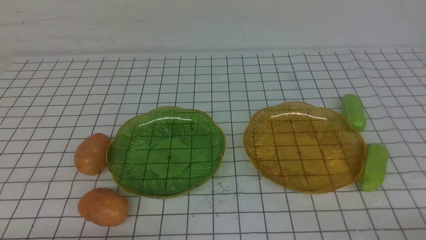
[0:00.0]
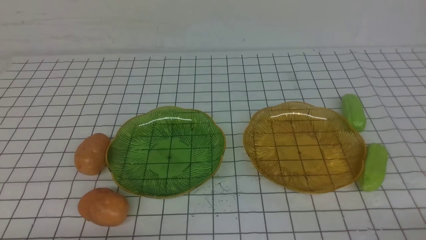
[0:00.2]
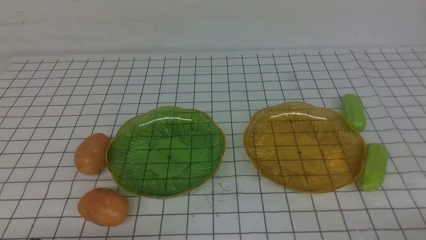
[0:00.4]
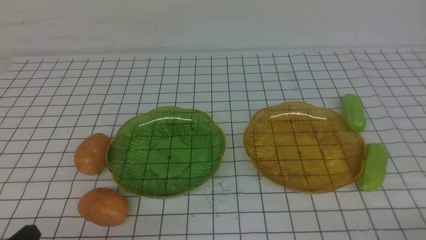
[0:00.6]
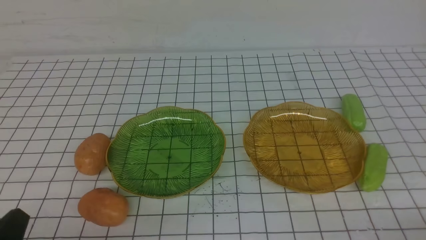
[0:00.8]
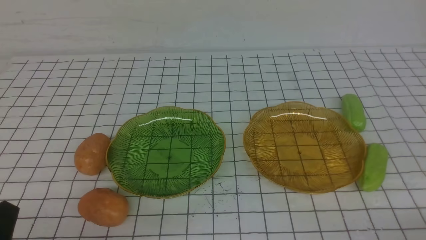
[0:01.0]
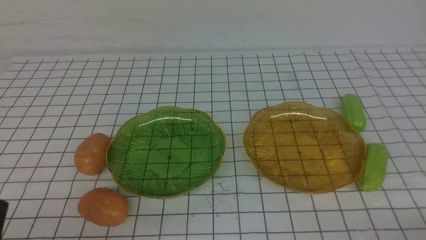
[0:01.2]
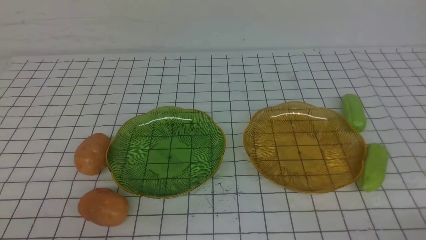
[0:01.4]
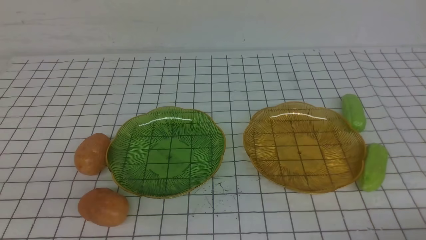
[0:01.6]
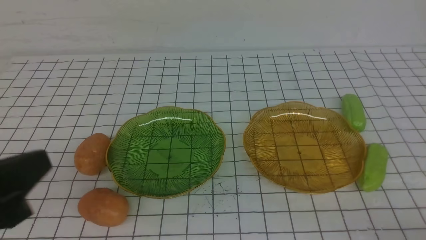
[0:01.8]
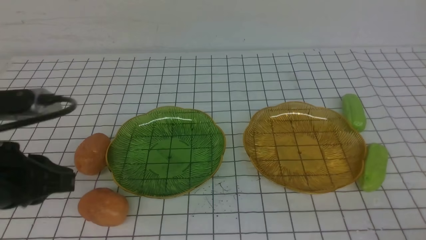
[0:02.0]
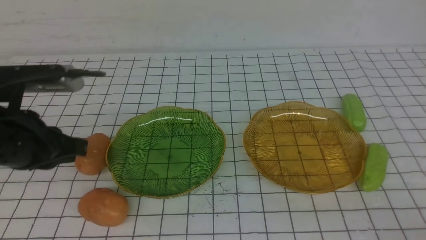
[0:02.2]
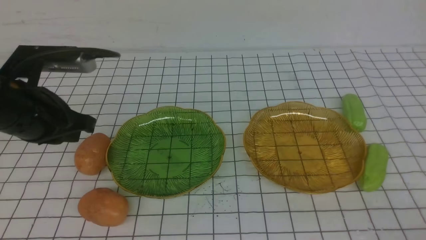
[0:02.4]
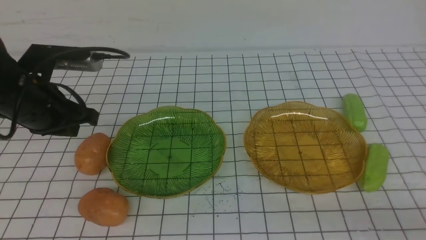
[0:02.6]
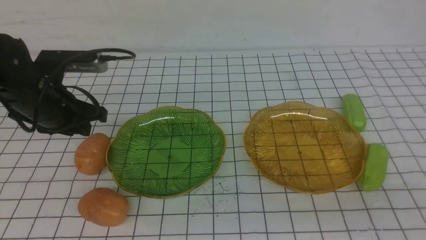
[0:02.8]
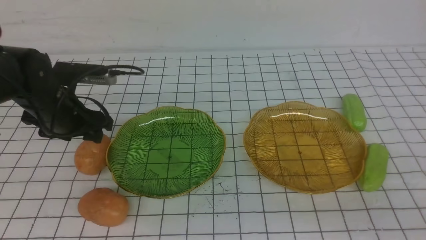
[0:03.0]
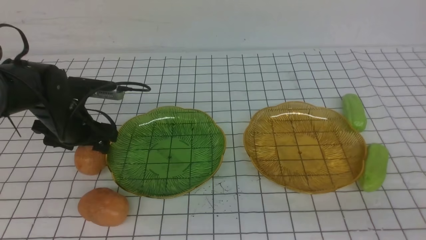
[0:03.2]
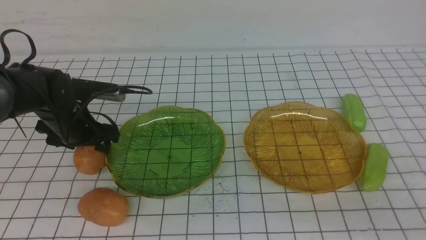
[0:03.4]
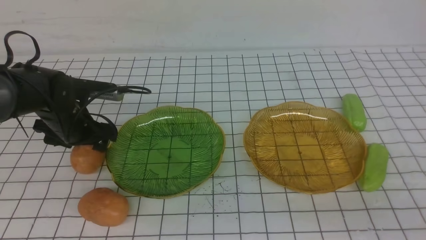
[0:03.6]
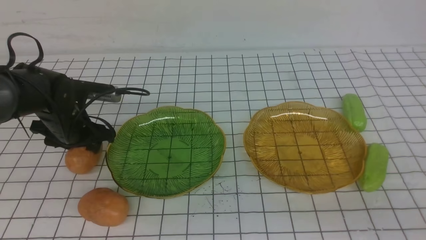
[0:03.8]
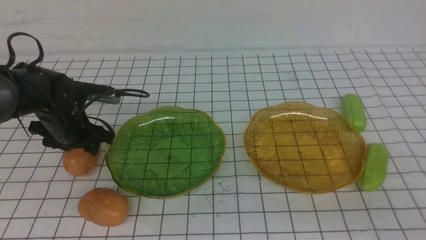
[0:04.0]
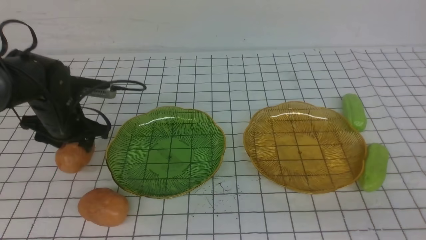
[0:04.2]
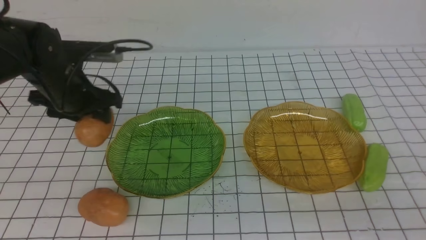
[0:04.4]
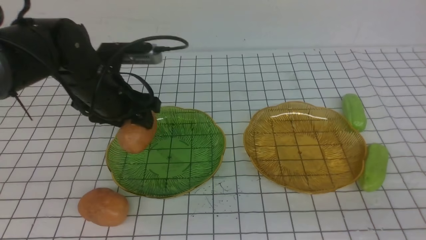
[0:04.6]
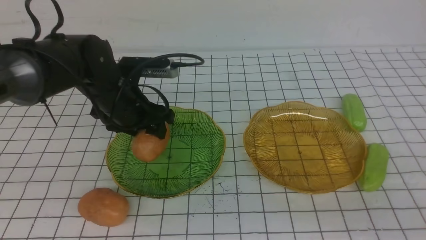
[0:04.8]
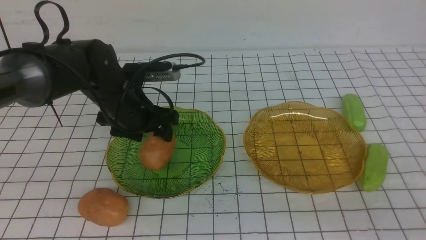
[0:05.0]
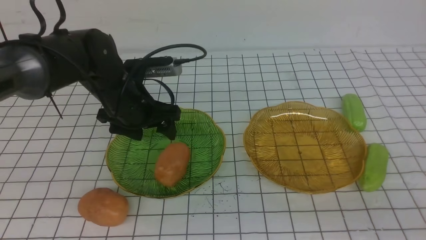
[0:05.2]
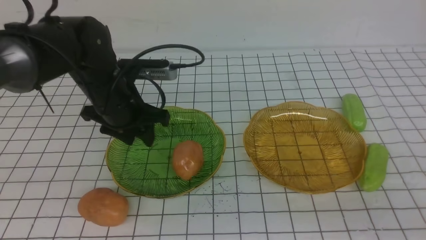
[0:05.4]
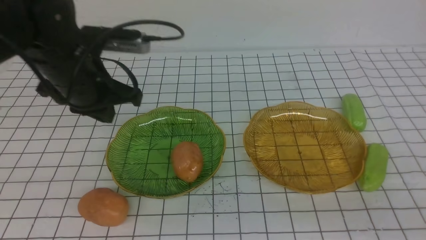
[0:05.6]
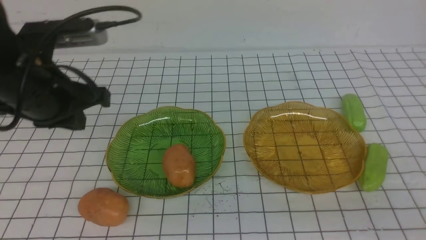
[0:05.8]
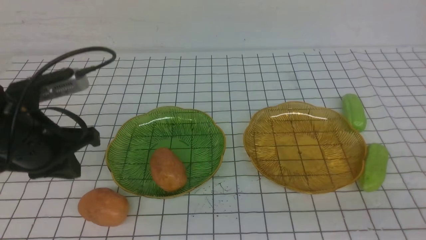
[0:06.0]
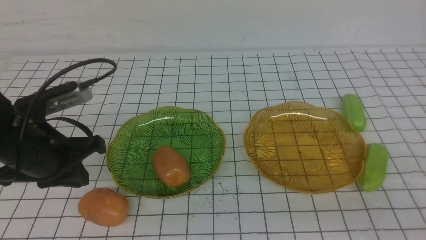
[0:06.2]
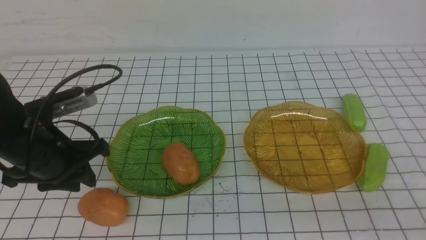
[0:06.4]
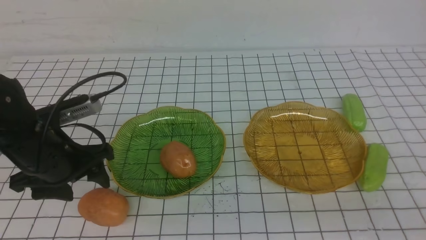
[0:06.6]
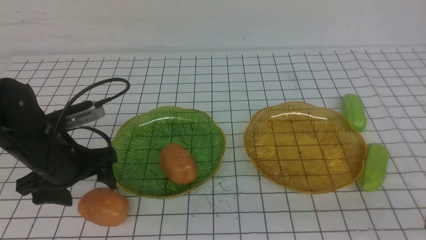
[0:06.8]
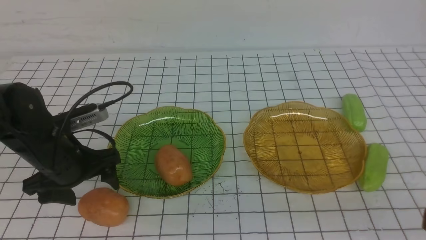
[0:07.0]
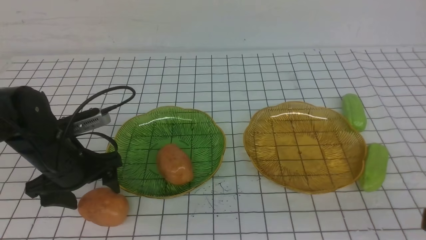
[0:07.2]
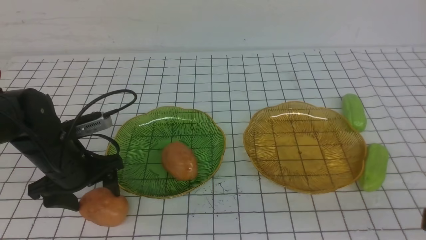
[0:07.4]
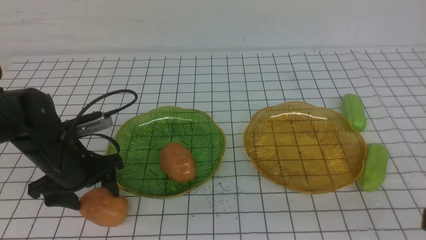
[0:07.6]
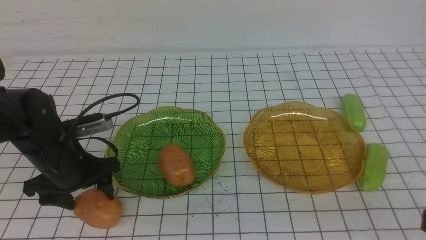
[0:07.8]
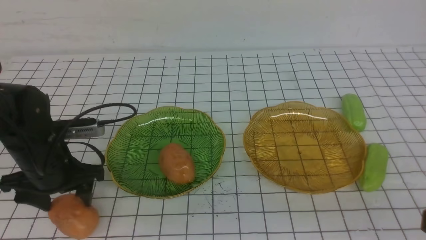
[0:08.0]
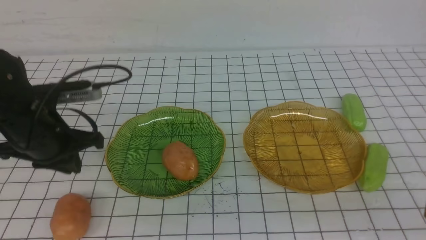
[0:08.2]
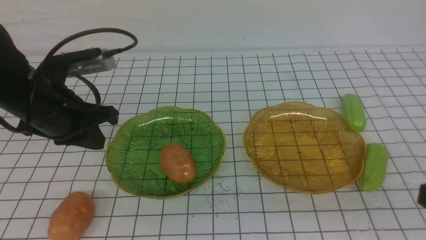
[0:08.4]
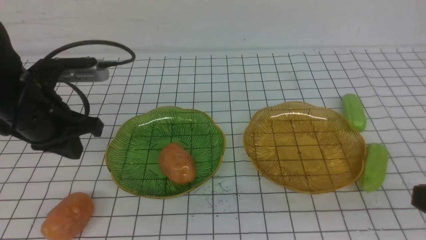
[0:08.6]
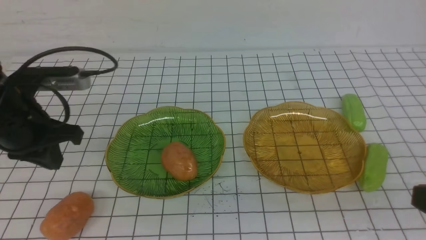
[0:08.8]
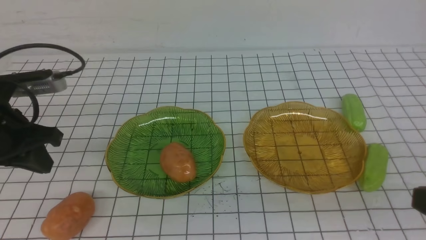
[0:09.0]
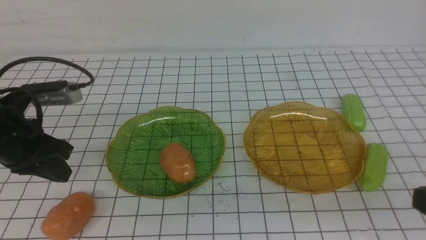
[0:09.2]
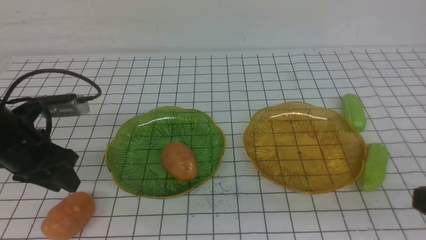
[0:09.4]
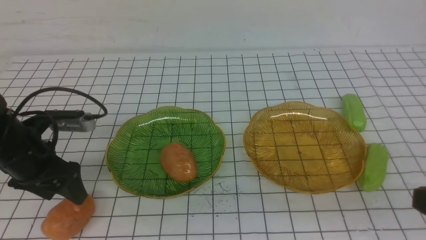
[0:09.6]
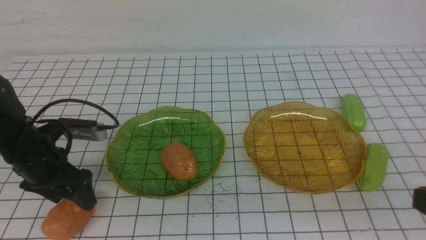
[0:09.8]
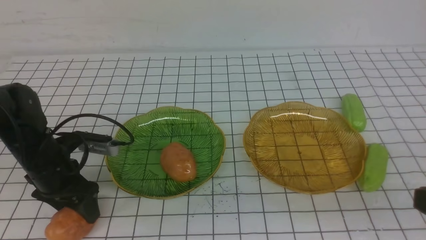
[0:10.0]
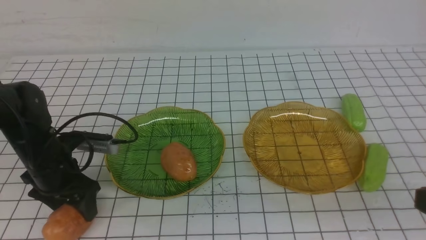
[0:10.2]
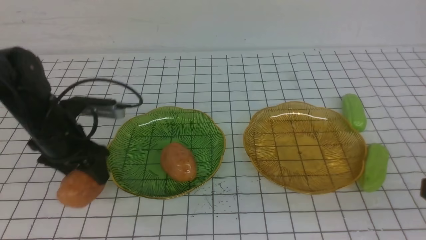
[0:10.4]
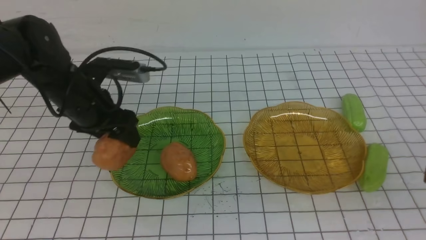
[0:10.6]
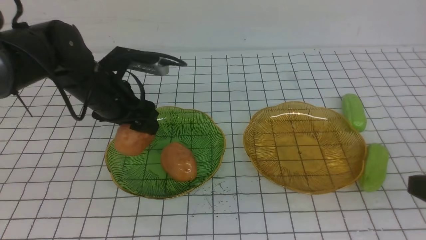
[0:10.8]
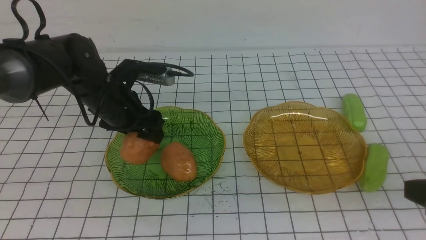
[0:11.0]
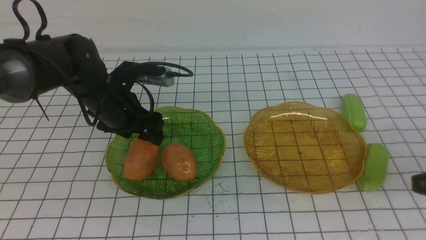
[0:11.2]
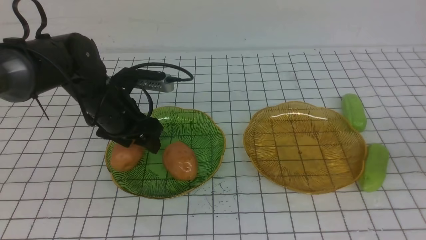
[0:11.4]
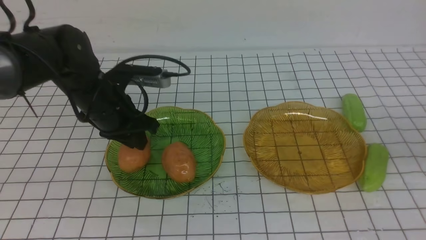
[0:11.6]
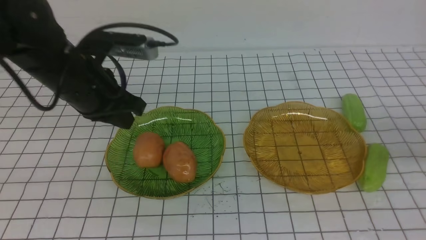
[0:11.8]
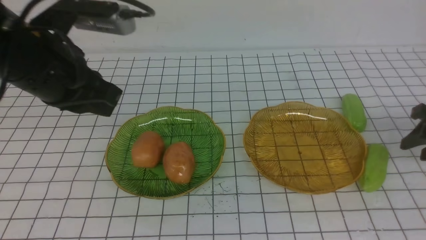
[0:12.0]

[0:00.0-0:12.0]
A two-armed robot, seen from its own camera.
Step, 0:00.0 to 0:11.2: Grab a potato with your left arm and put it on the left plate.
0:01.6 to 0:03.0: The right gripper travels upward by about 15 cm; the left gripper heads forward, covering roughly 30 cm, and opens up.
0:04.4 to 0:06.0: The left gripper moves backward and upward, roughly 15 cm, and closes its fingers.
0:06.0 to 0:07.6: The left gripper heads downward, covering about 10 cm, and opens its fingers.
0:07.6 to 0:09.0: The left gripper goes roughly 10 cm upward, and closes up.
0:09.0 to 0:10.4: The left gripper is displaced downward by about 10 cm, and opens its fingers.
0:10.4 to 0:12.0: The left gripper heads upward and to the right, covering some 15 cm, and closes its fingers. Meanwhile the right gripper goes roughly 25 cm forward and to the right, and opens.

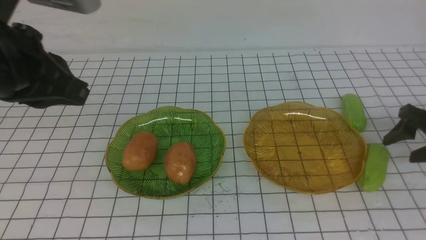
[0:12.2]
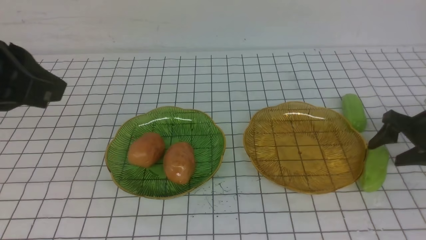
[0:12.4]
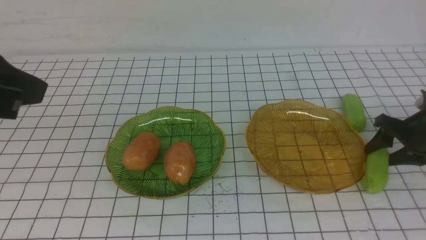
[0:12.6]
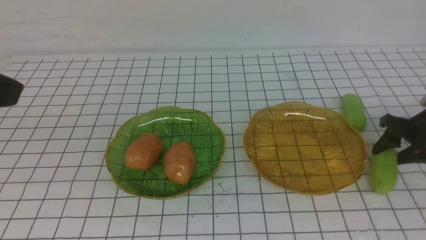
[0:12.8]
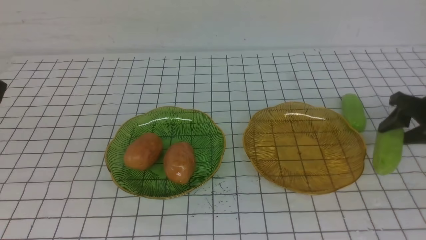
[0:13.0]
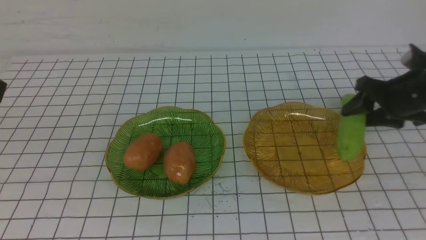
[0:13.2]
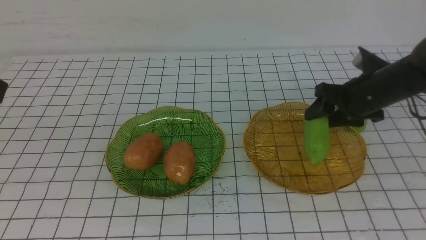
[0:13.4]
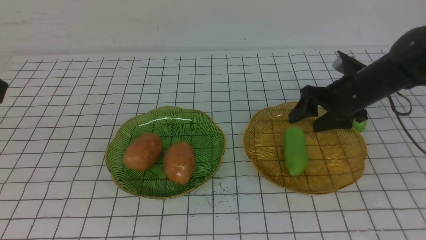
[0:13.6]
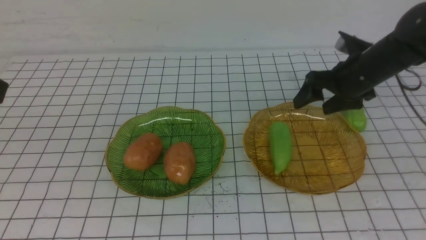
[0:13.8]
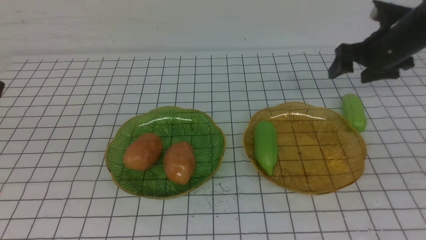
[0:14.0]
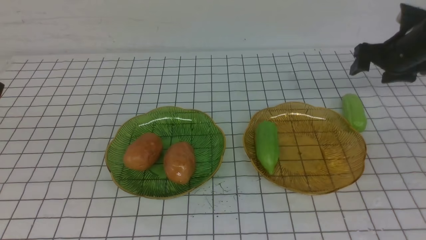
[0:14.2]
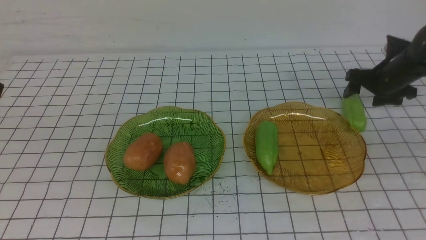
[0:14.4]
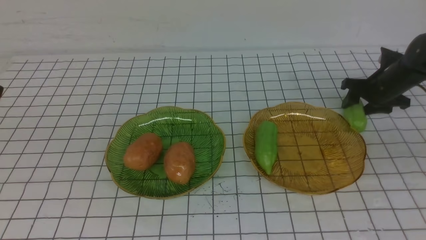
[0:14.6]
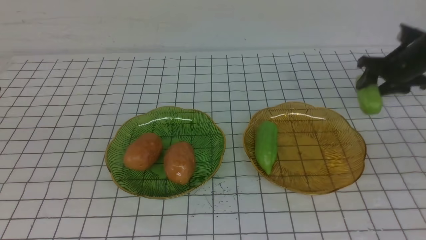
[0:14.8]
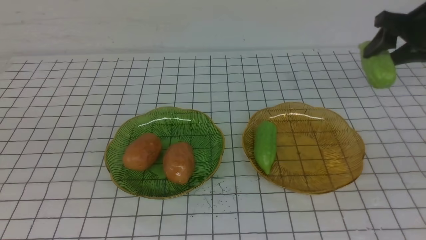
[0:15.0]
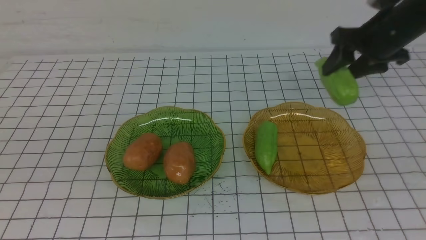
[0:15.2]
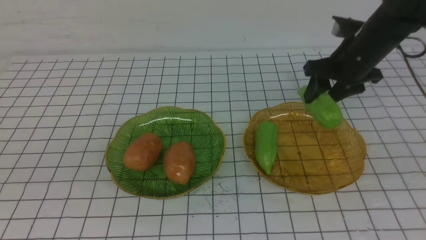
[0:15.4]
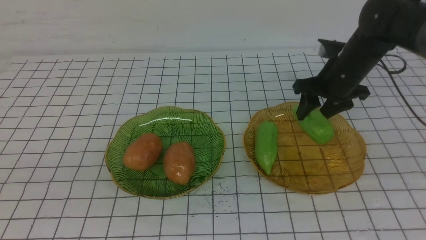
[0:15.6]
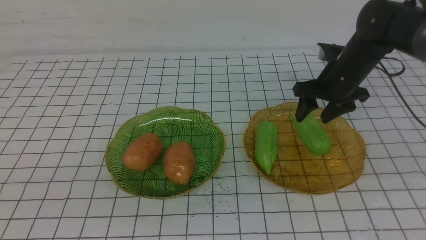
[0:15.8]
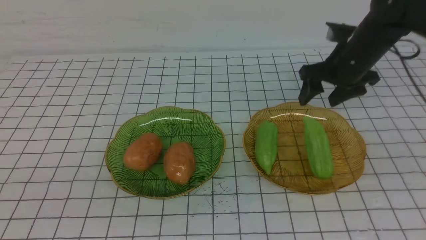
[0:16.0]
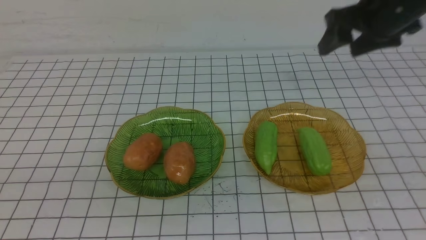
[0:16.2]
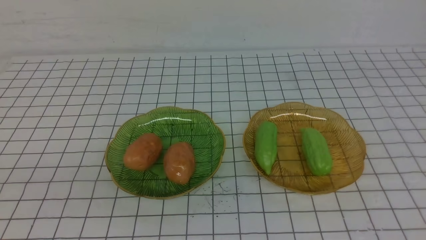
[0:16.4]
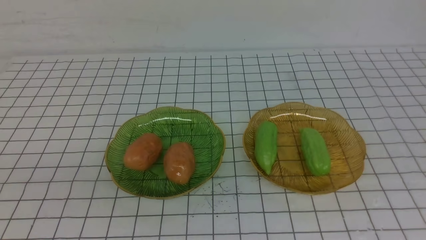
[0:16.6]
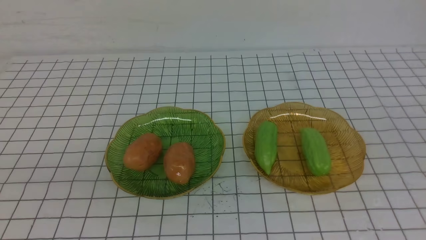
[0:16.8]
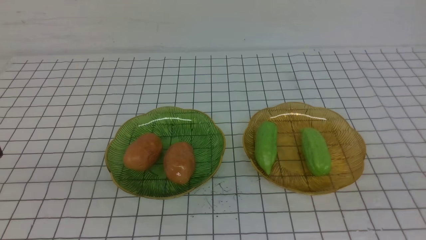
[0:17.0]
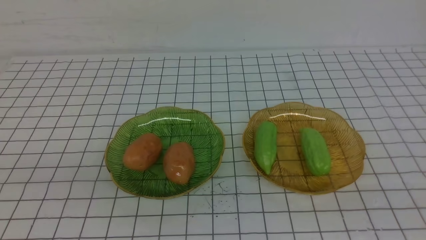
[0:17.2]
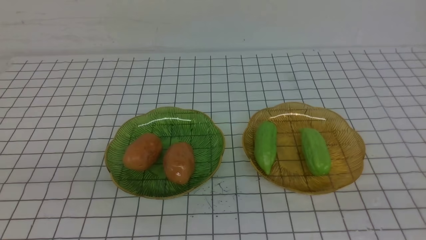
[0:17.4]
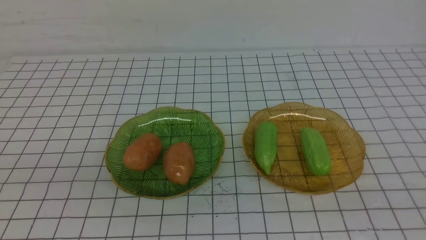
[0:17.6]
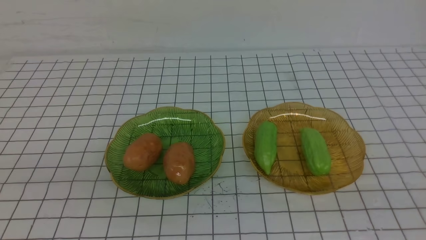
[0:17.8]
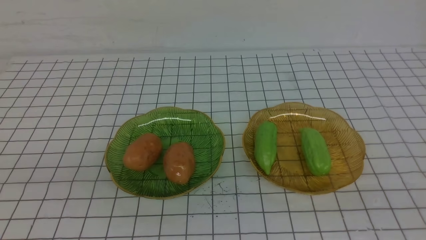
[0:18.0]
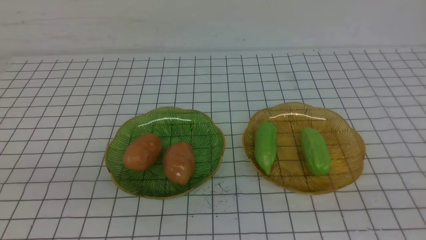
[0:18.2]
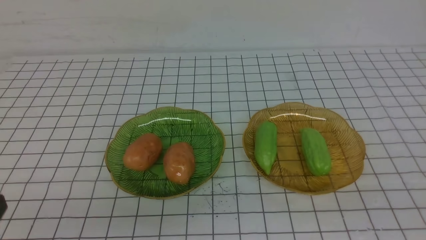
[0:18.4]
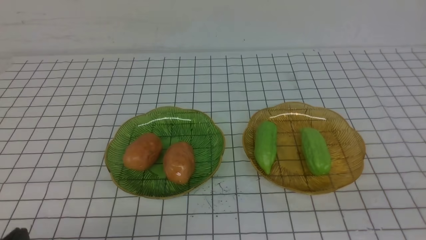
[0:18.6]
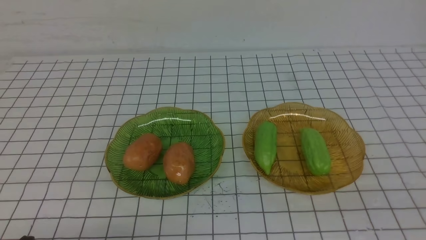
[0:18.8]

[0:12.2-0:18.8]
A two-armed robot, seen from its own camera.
Step, 0:12.2 to 0:13.6: use the right arm to grab a chayote and put it into the right plate.
Step, 0:13.8 to 0:15.8: use the right arm to grab a chayote and put it into the right plate.
0:12.2 to 0:13.8: The left gripper shifts about 10 cm backward and upward, while the right gripper moves to the left and forward, about 15 cm.
0:13.8 to 0:15.4: The right gripper moves about 5 cm upward and comes back.
0:15.4 to 0:17.2: The right gripper travels backward by roughly 40 cm, and closes.
